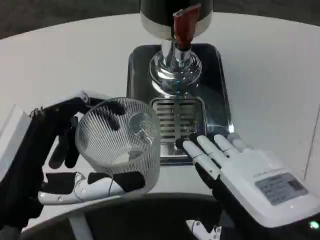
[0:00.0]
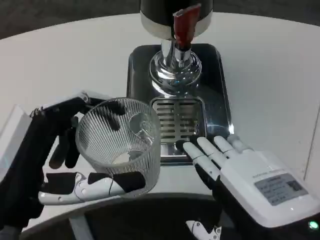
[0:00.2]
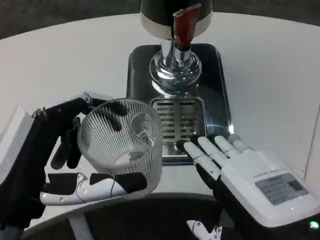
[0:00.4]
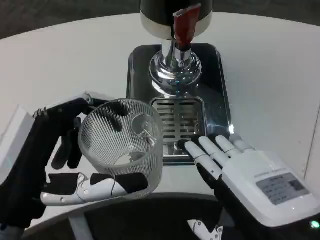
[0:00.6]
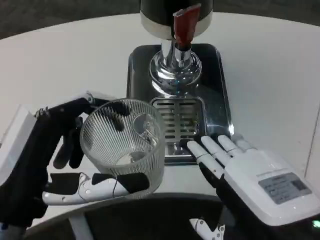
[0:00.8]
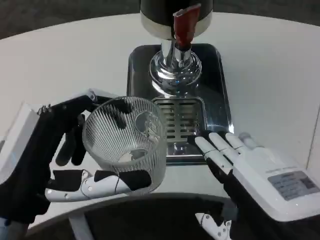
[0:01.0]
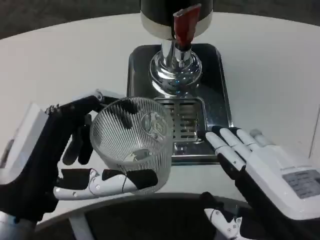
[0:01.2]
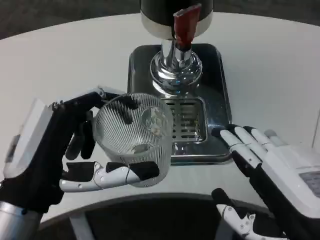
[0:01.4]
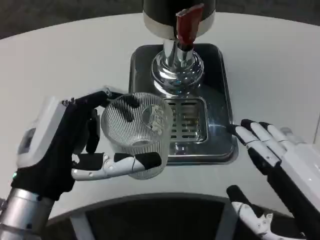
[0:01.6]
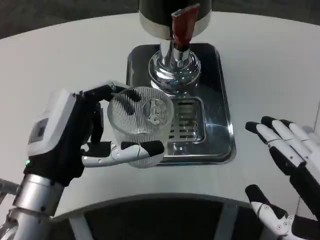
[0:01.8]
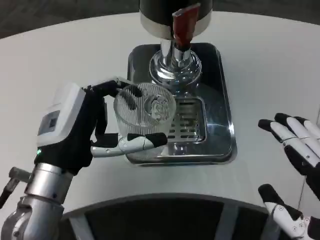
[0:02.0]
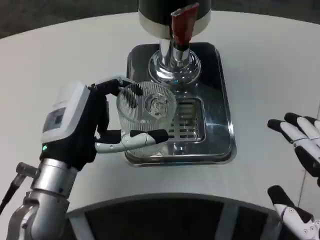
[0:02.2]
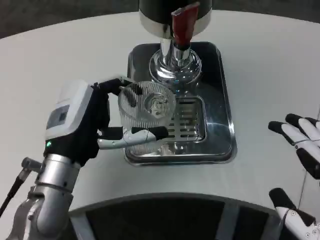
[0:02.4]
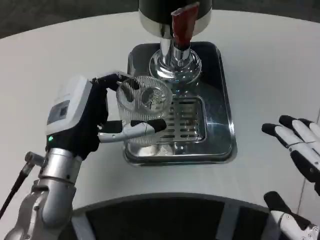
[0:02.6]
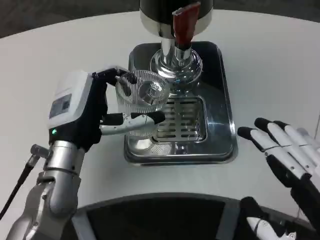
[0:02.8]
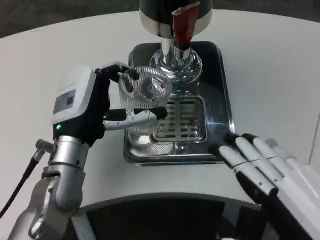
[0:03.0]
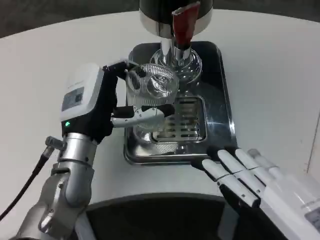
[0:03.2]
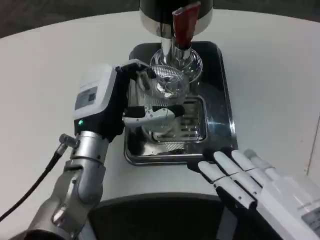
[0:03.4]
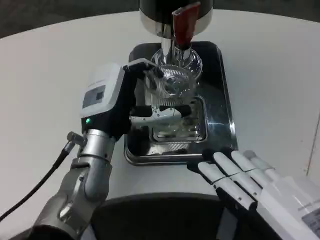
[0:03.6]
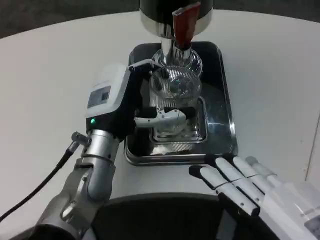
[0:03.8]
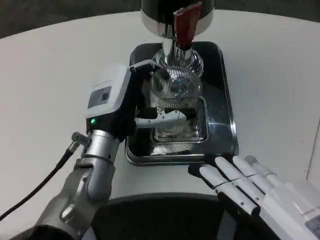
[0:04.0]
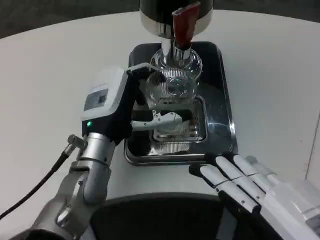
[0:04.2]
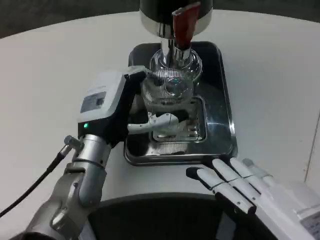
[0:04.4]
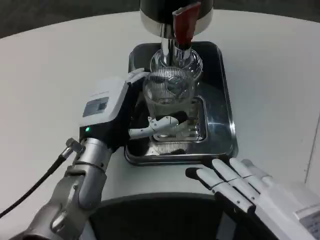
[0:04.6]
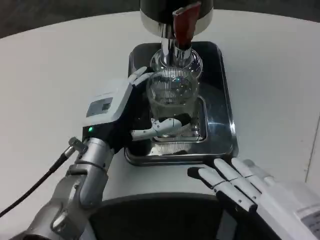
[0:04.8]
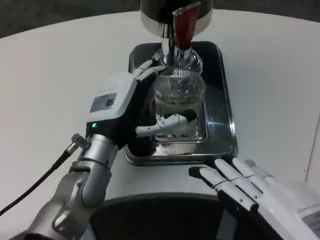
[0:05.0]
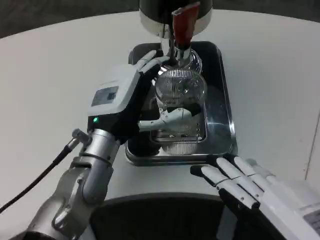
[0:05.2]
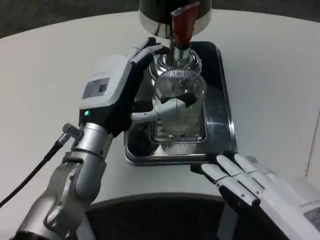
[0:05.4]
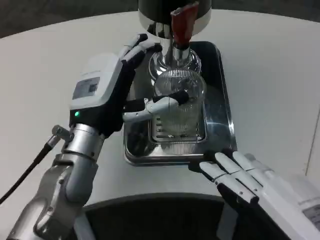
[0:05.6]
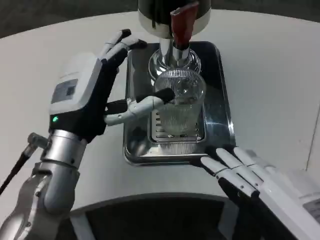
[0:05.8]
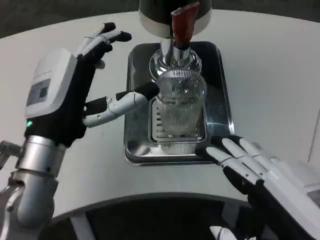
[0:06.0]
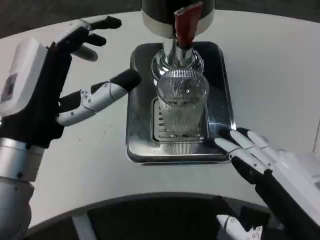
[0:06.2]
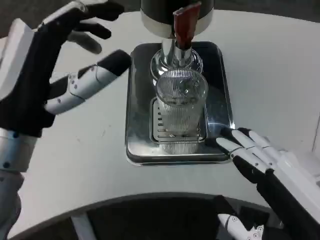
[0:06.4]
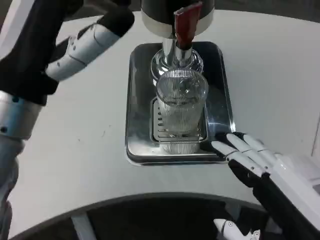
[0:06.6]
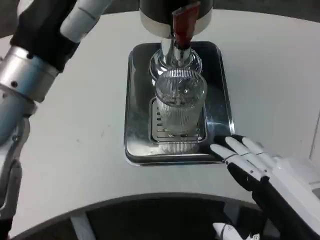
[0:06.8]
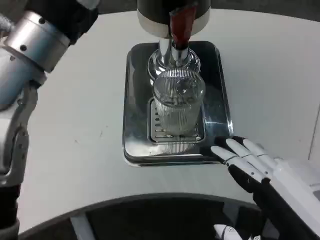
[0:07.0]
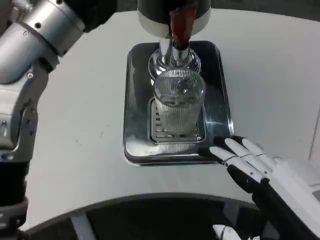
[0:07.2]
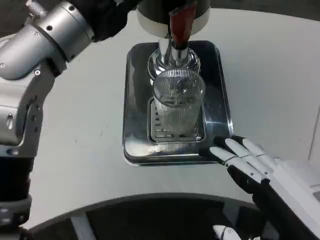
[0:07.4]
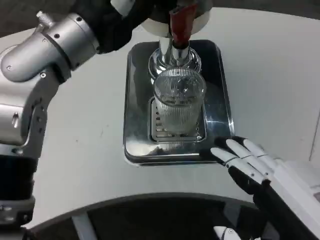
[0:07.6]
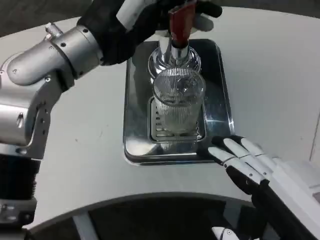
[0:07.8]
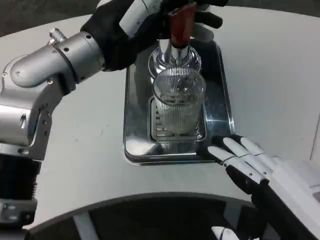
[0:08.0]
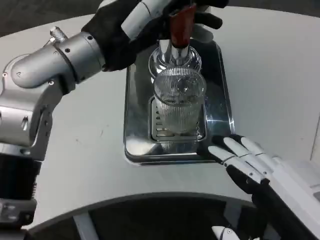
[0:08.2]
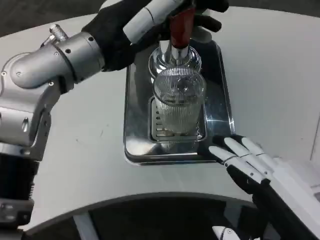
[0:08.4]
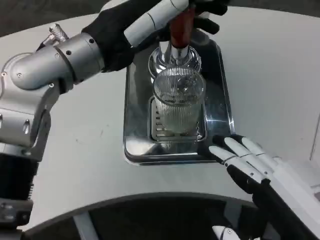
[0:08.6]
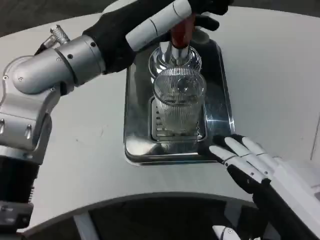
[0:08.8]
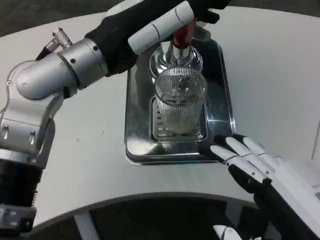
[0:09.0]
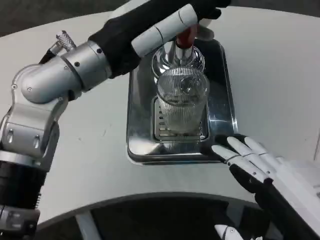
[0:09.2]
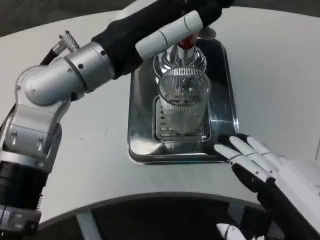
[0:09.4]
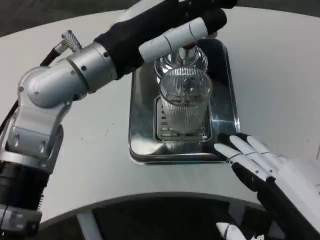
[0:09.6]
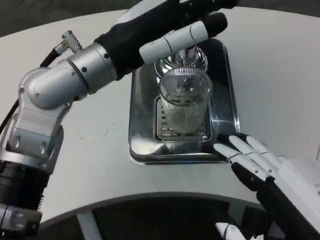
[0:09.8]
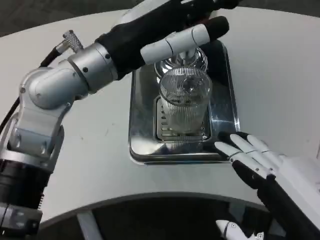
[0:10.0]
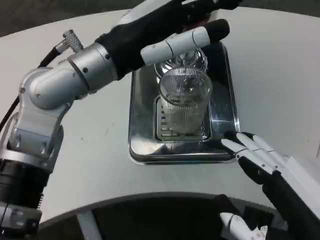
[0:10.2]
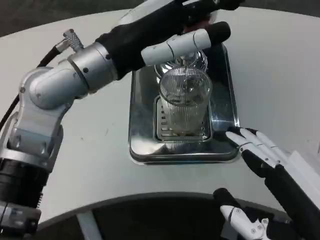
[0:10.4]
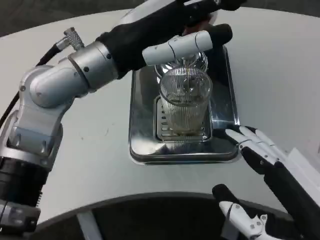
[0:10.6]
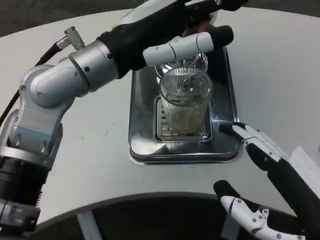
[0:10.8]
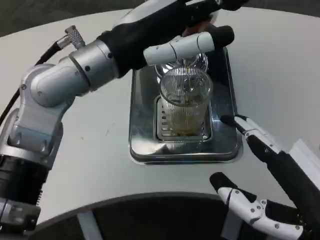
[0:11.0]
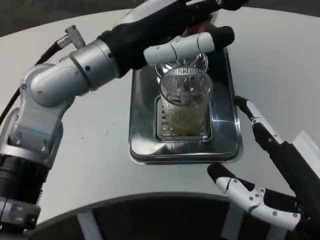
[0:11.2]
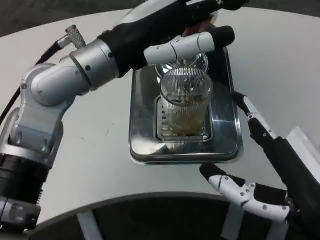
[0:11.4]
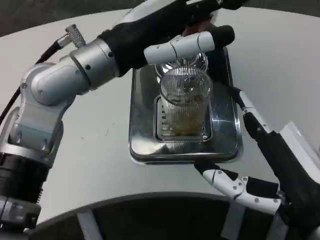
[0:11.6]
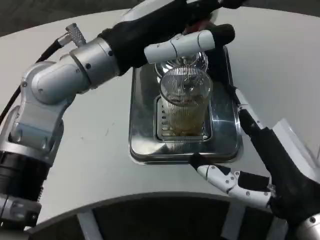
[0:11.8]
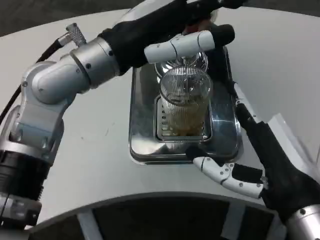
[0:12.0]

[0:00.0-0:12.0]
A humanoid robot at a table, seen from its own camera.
Task of the whole recording: Grasp the cup under the faucet to collect the drink, then remove the cup.
0:00.0 to 0:01.6: The left hand changes place by approximately 5 cm.
0:01.6 to 0:03.0: The left hand goes approximately 10 cm forward.
0:04.4 to 0:06.0: The left hand goes some 5 cm backward.
0:06.0 to 0:07.6: The left hand shifts roughly 15 cm upward and forward.
0:10.4 to 0:12.0: The right hand travels forward by some 5 cm.

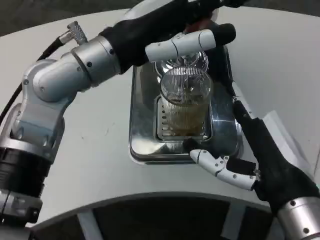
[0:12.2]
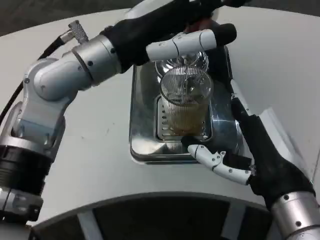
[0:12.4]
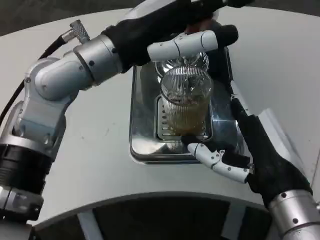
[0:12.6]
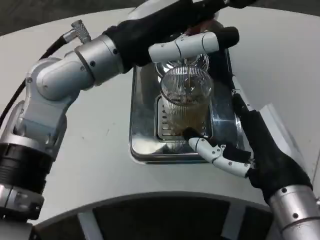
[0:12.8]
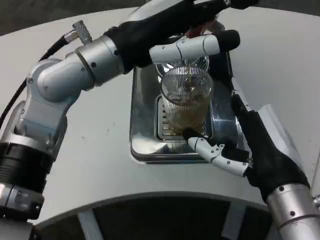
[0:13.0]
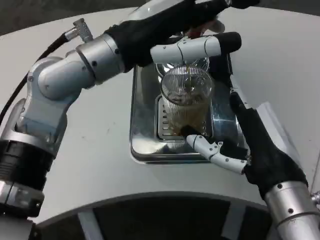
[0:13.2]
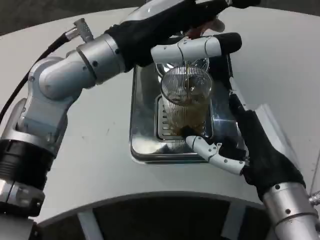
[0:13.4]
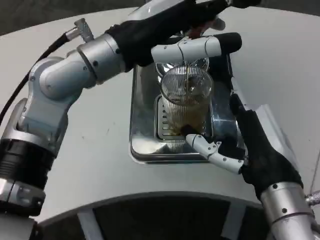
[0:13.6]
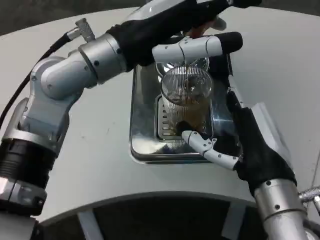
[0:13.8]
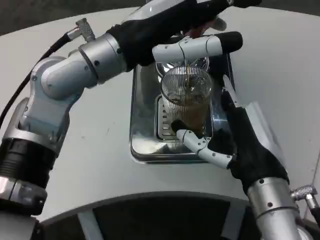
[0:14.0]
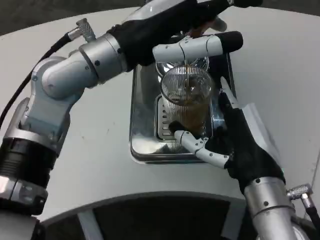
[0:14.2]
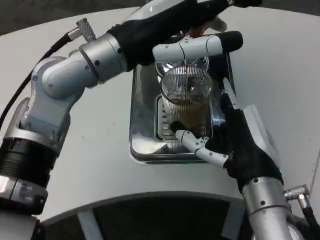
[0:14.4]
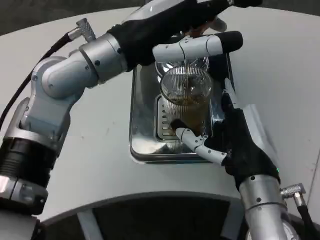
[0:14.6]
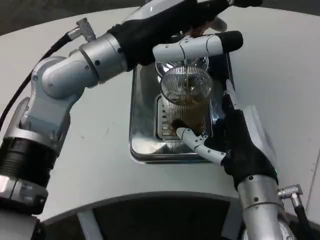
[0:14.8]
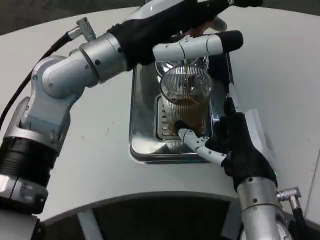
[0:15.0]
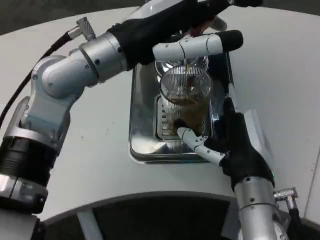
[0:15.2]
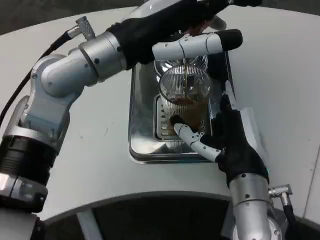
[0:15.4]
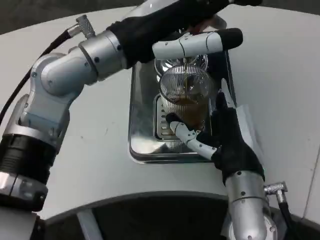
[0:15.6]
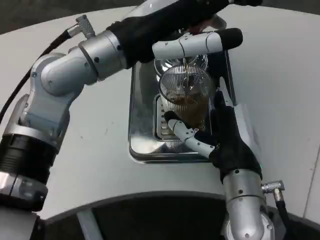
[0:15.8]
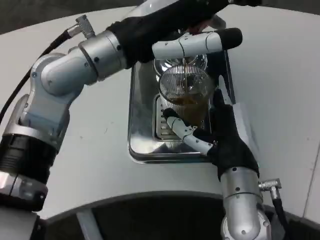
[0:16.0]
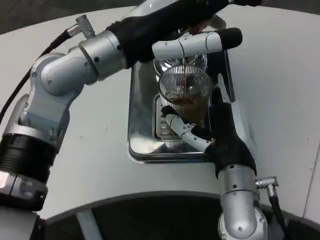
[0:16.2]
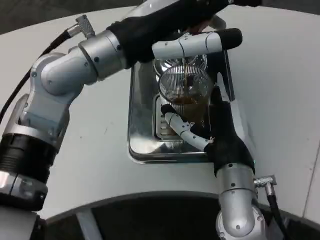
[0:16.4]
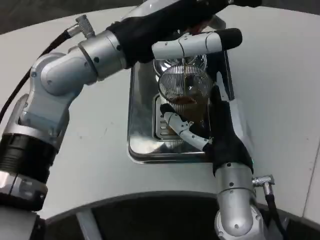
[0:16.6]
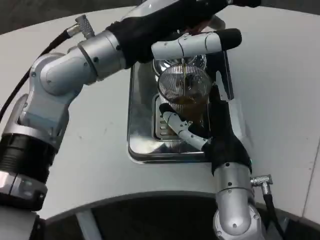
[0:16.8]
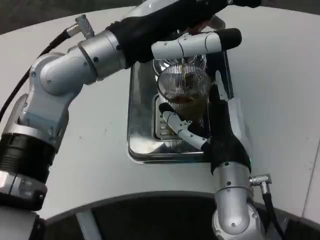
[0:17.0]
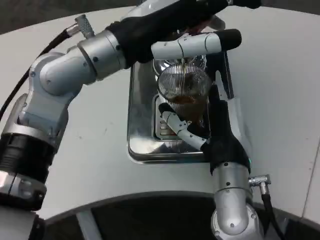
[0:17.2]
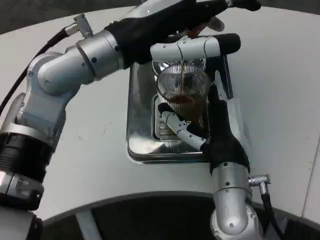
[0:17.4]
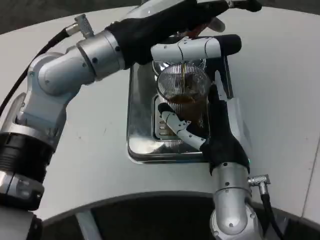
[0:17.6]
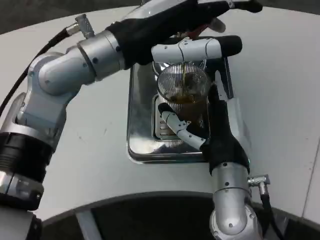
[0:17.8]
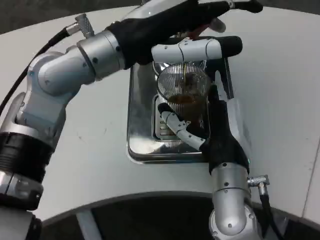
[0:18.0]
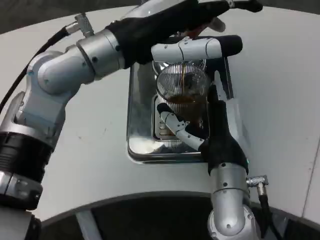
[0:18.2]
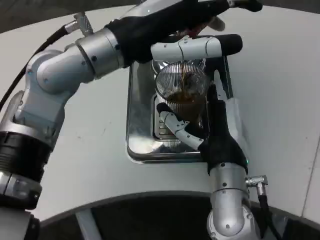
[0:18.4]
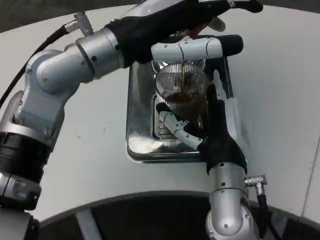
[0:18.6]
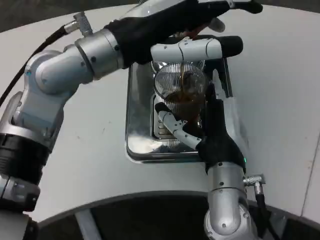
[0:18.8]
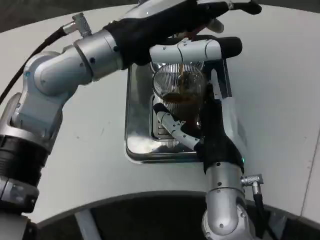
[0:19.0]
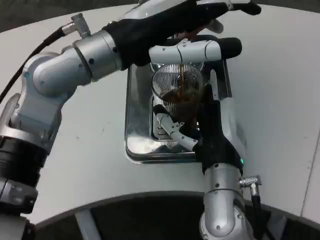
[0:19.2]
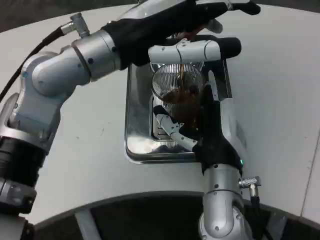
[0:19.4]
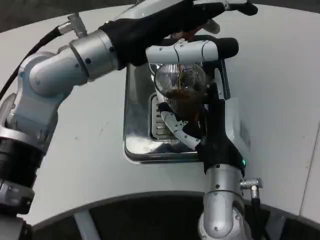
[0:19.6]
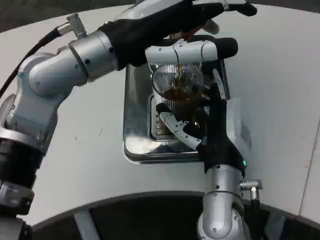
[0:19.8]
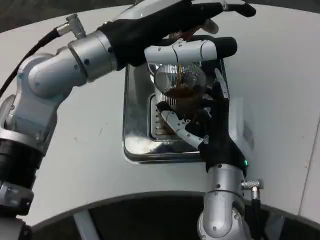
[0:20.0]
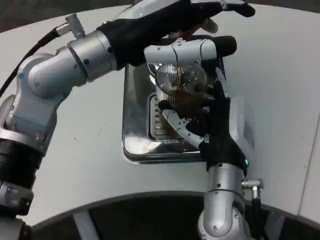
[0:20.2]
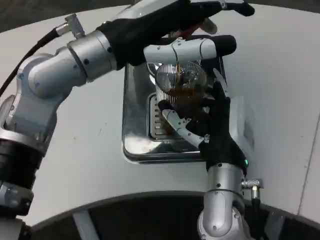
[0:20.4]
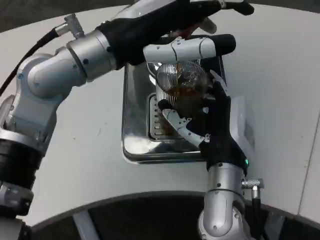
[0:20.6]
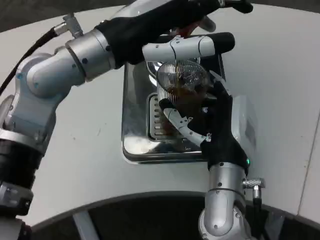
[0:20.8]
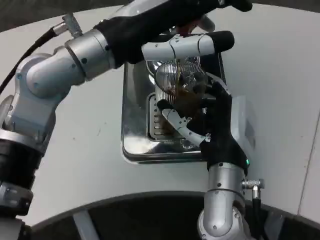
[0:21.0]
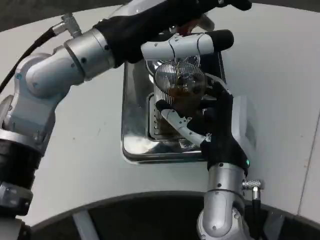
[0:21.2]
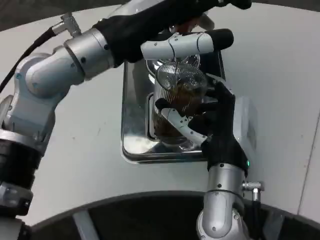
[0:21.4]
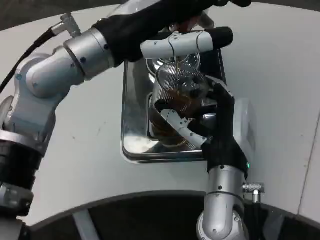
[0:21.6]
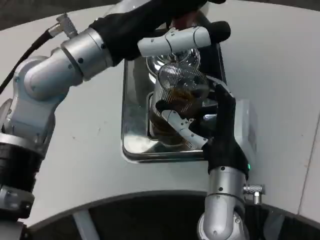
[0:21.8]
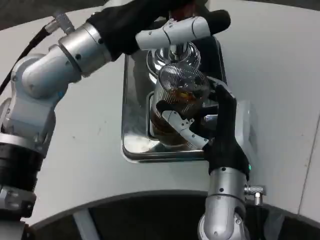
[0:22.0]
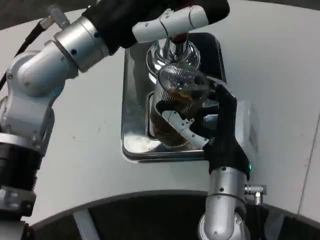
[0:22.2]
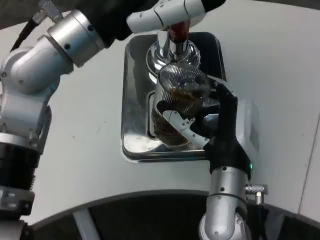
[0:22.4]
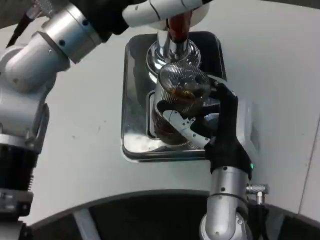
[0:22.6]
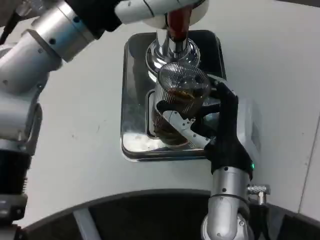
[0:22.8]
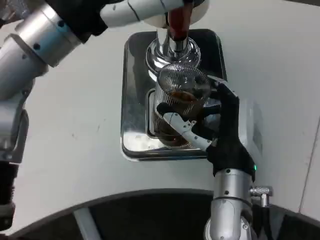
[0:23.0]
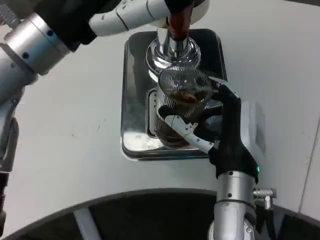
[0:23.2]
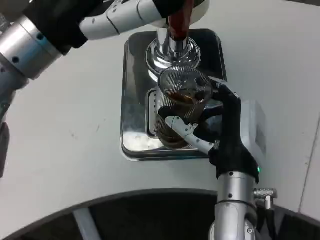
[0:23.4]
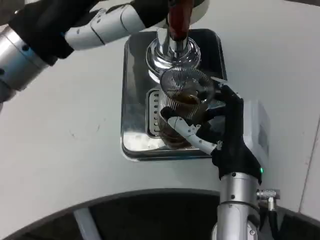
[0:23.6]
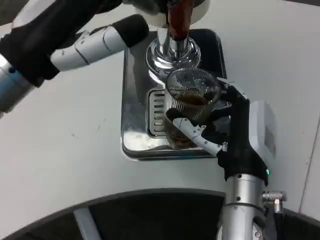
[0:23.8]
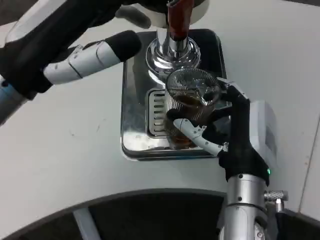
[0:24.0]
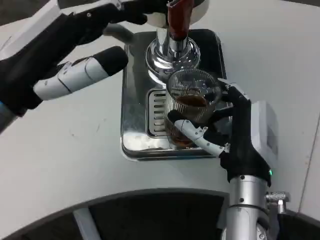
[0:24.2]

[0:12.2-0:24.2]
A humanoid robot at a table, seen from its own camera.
Task of the whole recording: Grasp the cup under the faucet to collect the drink, then remove the cup.
0:13.8 to 0:15.2: The hands make only small movements.
0:16.6 to 0:18.2: Both hands stay about where they are.
0:19.8 to 0:21.2: Neither hand changes place.
0:22.6 to 0:24.2: The left hand moves to the left, backward and downward, roughly 10 cm.
